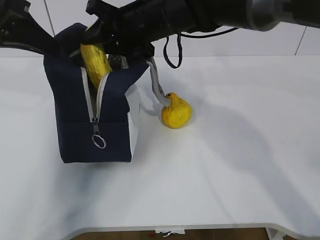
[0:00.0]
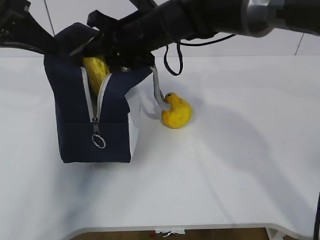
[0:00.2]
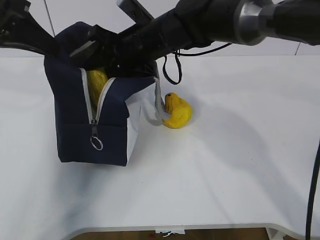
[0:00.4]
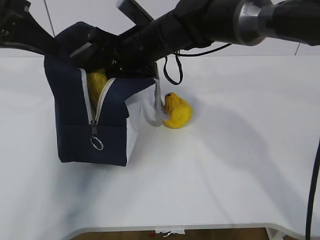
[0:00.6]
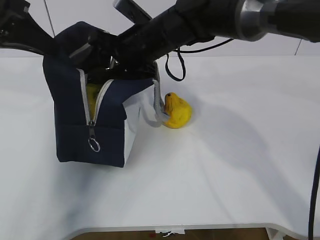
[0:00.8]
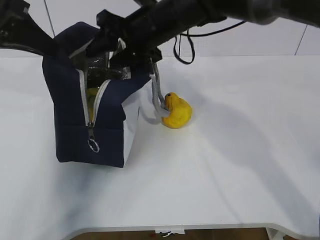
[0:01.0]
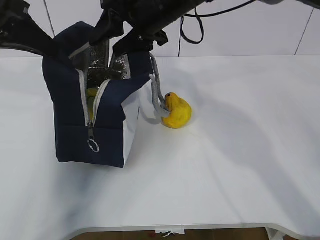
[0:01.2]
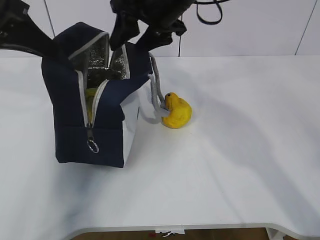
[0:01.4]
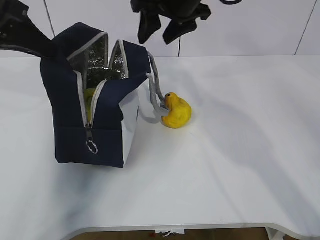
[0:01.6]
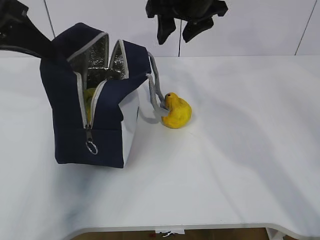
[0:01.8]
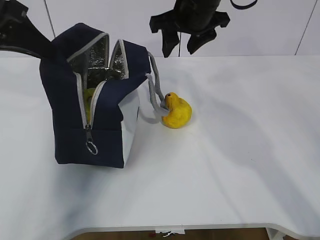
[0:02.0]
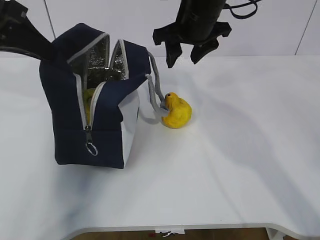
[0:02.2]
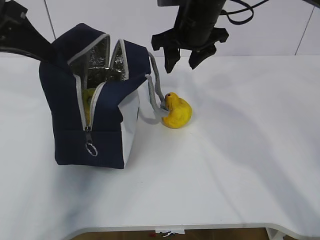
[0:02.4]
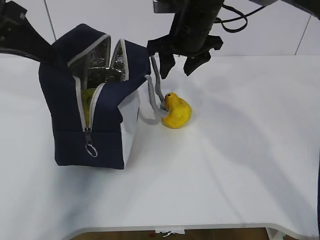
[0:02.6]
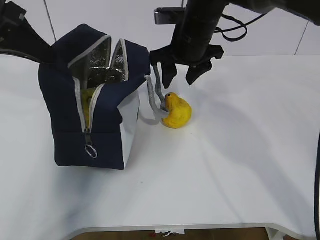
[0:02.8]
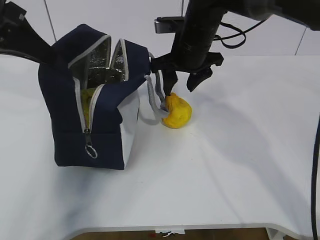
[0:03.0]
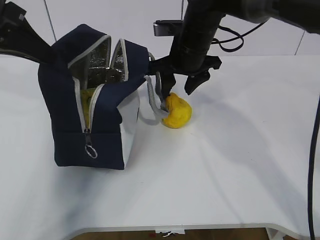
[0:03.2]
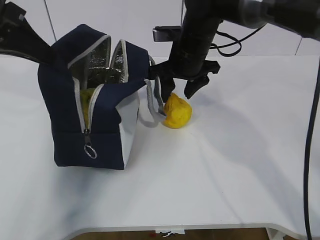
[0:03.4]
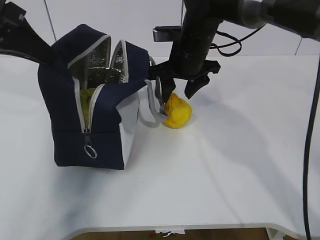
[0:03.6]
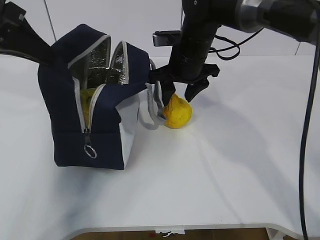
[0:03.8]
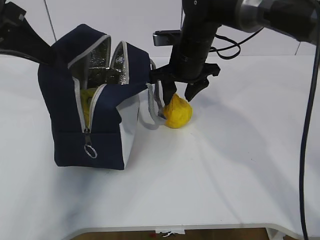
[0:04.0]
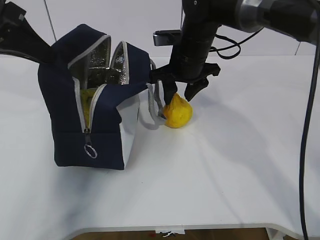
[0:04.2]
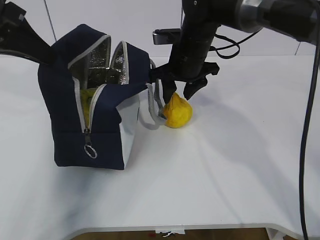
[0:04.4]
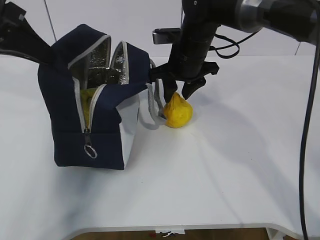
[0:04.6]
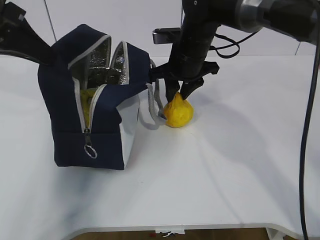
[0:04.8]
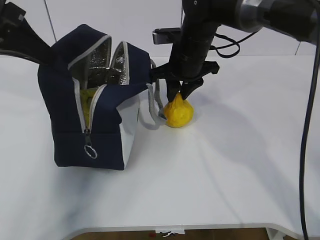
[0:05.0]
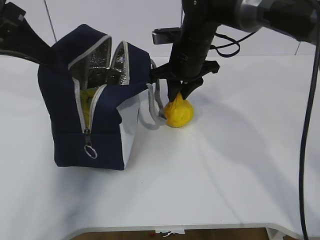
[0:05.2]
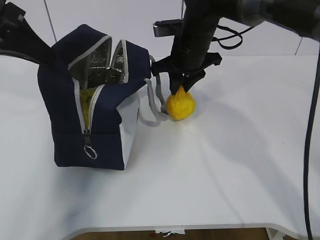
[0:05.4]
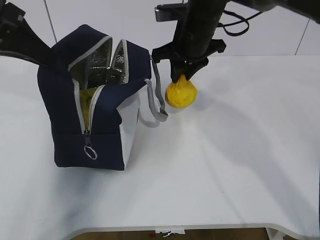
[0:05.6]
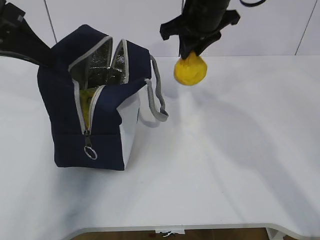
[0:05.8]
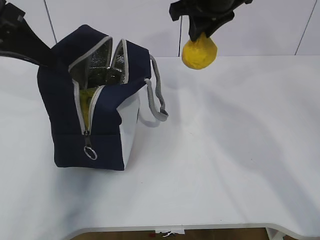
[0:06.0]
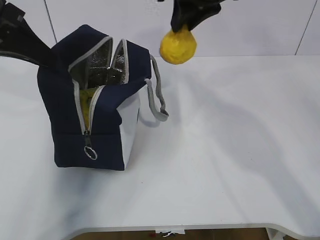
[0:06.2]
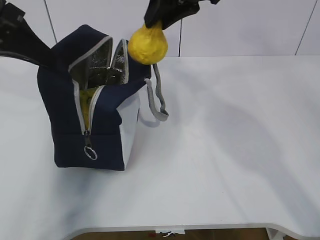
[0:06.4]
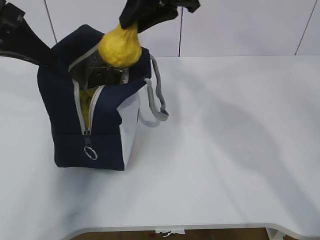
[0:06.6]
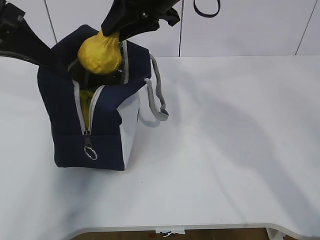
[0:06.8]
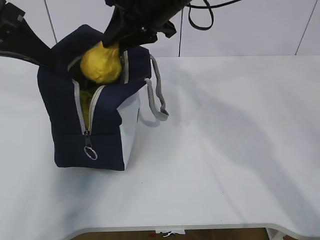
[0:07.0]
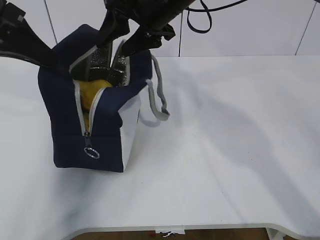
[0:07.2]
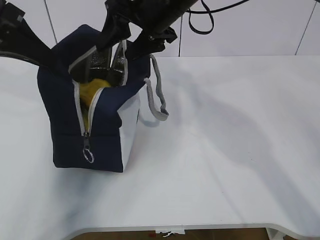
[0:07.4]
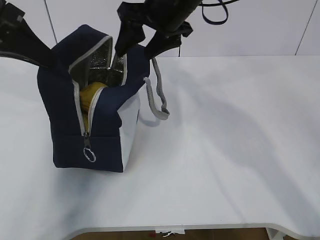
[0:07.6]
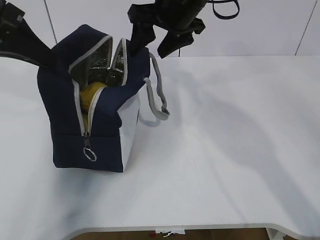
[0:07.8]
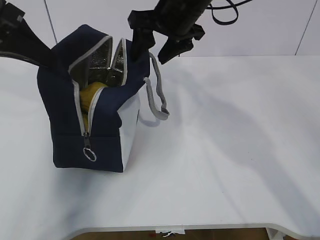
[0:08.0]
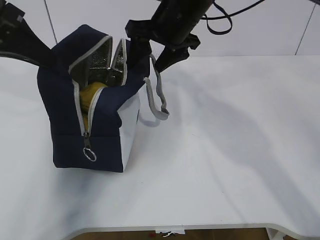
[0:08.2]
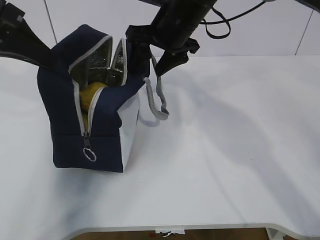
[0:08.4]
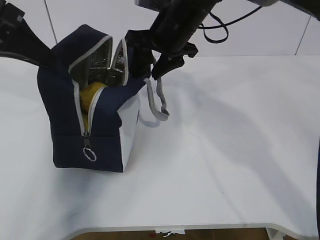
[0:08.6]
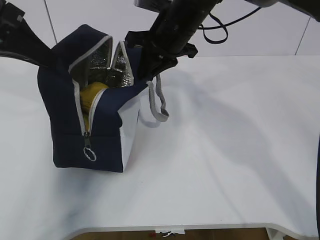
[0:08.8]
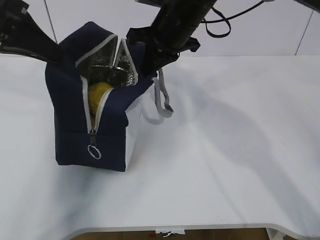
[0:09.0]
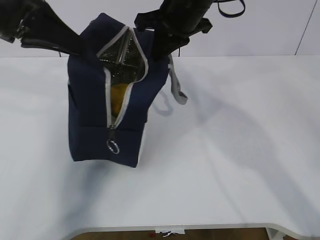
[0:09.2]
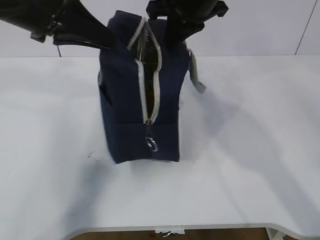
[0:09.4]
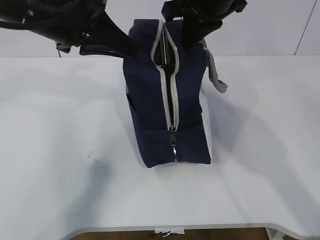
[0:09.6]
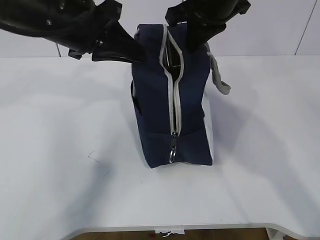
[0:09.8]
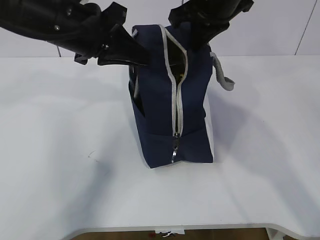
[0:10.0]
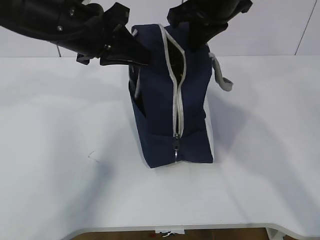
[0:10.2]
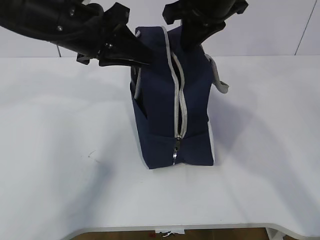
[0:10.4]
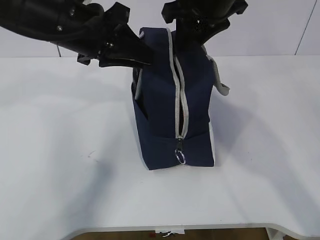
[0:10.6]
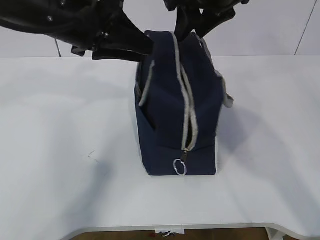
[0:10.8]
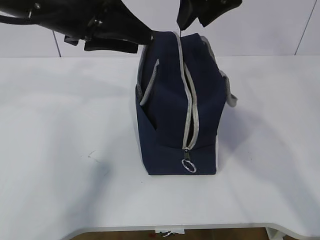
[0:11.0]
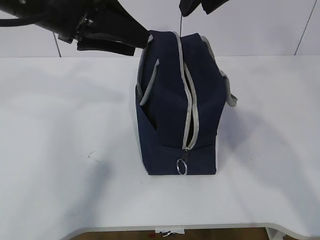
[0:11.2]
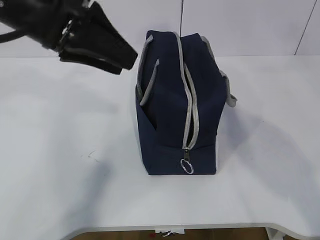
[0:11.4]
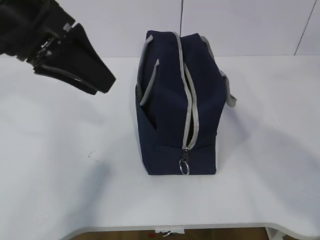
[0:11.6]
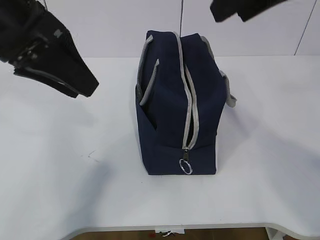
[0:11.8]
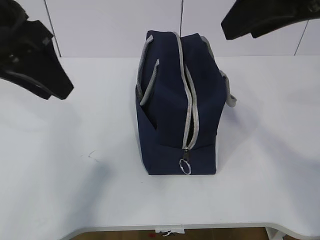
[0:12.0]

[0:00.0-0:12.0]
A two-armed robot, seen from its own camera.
Step, 2.0 to 3.0 s: Grab the lunch bag with your right hand.
Step, 3.2 to 4.8 s: Move the lunch bag to the right.
0.0 to 1.6 s: The right gripper travels to the right by some 5 cm, and opens its fingers.
1.6 to 3.0 s: The right gripper shifts some 10 cm downward.
3.0 to 4.4 s: The grippers stay close to where they were, moving slightly.
4.4 to 6.0 s: The right gripper is displaced upward by approximately 10 cm, and closes its fingers.
6.0 to 7.6 s: The right gripper moves to the left, approximately 5 cm, and opens.
7.6 to 9.0 s: The right gripper closes up.
9.0 to 10.4 s: The left gripper heads to the right, covering roughly 10 cm; the right gripper moves upward, approximately 5 cm.
10.4 to 12.0 s: The left gripper moves backward and to the left, approximately 10 cm, and opens its fingers. Meanwhile the right gripper is displaced backward and upward by approximately 15 cm, and opens.

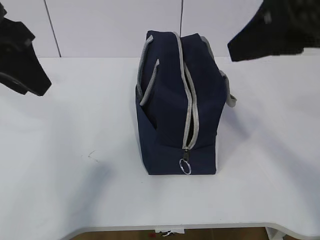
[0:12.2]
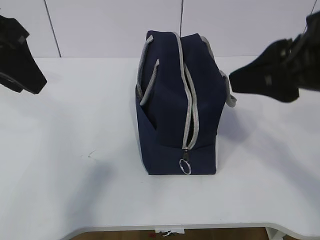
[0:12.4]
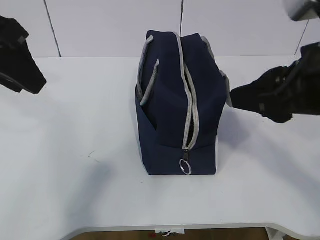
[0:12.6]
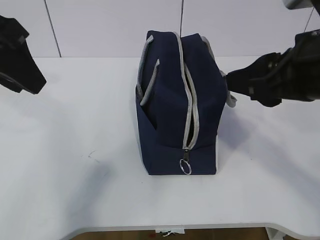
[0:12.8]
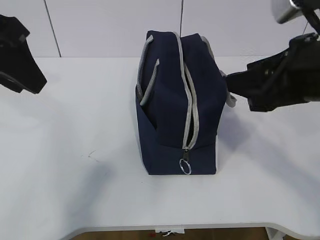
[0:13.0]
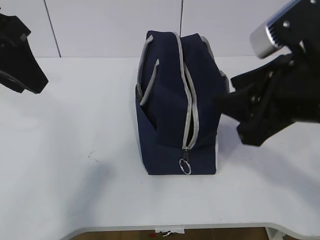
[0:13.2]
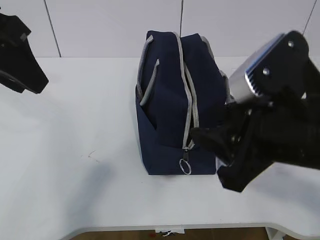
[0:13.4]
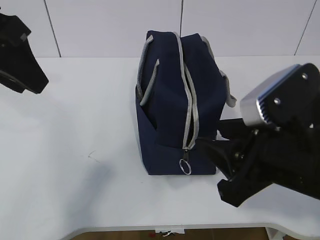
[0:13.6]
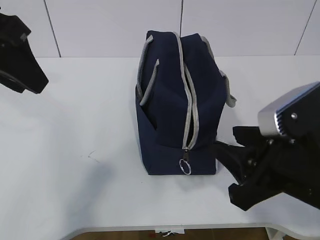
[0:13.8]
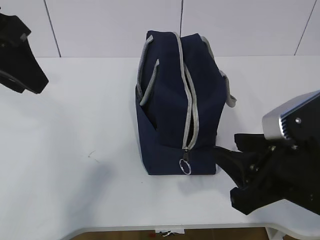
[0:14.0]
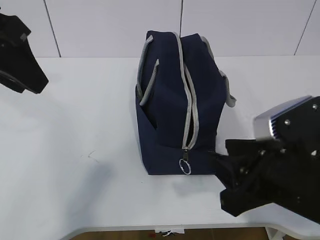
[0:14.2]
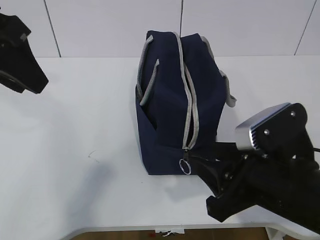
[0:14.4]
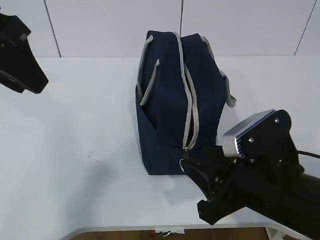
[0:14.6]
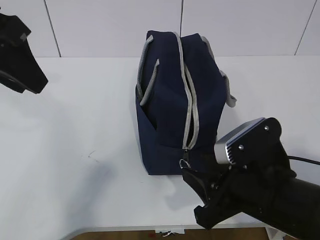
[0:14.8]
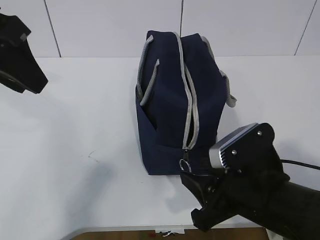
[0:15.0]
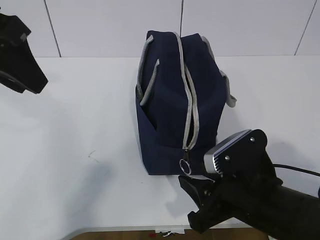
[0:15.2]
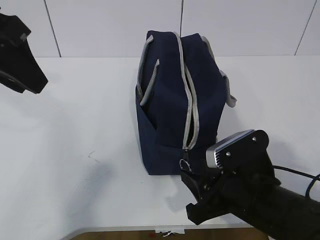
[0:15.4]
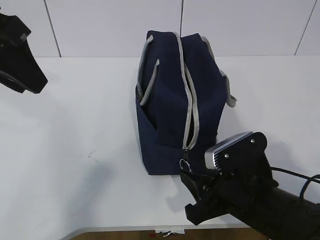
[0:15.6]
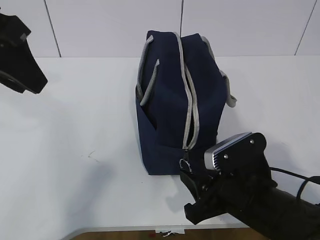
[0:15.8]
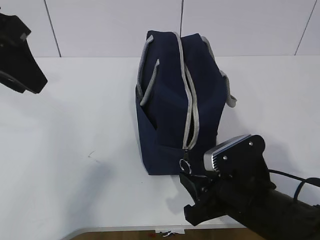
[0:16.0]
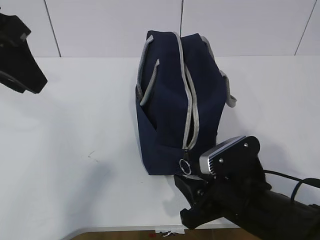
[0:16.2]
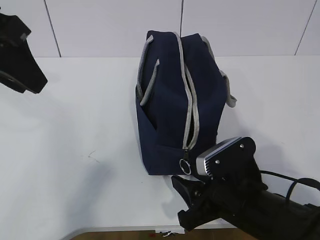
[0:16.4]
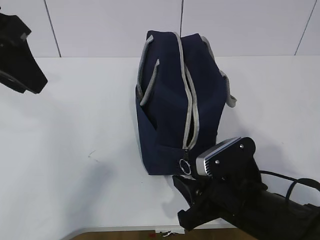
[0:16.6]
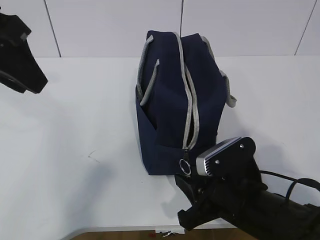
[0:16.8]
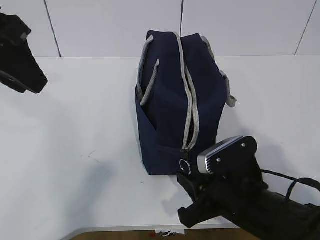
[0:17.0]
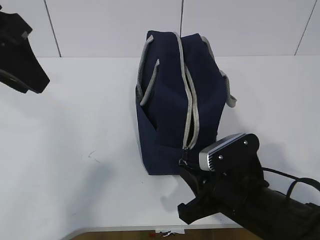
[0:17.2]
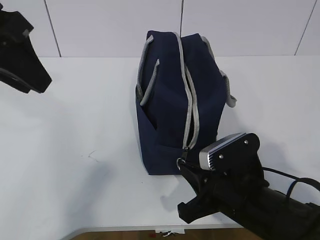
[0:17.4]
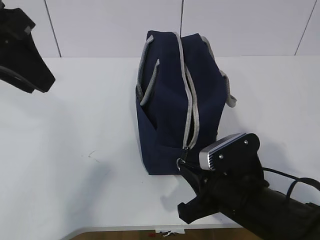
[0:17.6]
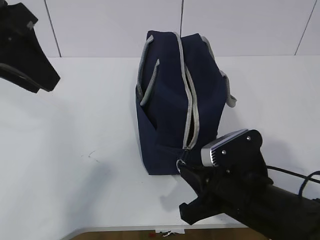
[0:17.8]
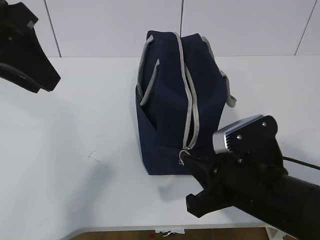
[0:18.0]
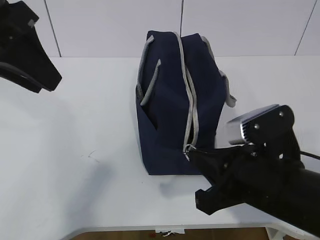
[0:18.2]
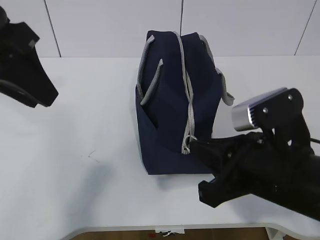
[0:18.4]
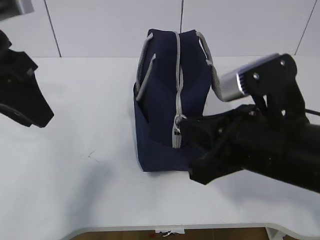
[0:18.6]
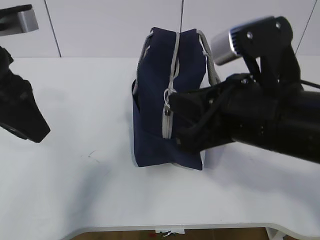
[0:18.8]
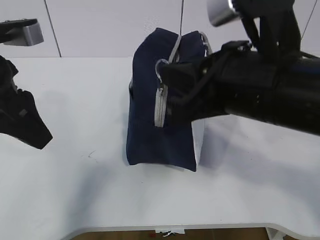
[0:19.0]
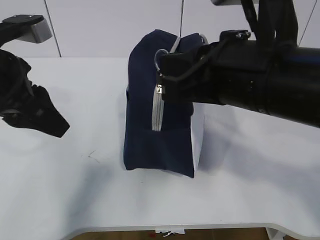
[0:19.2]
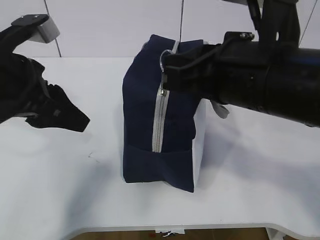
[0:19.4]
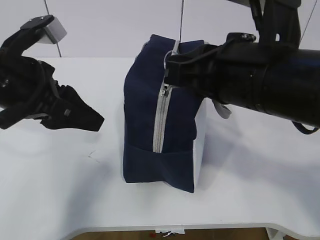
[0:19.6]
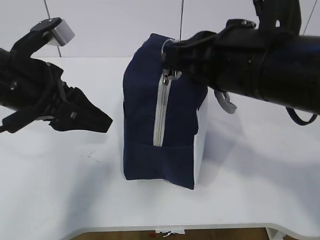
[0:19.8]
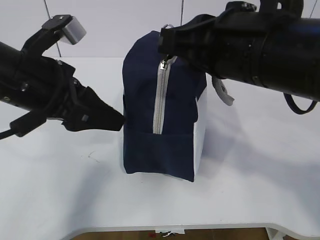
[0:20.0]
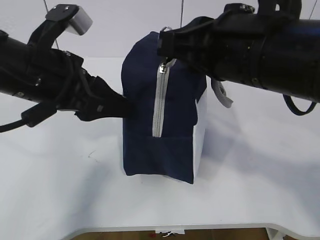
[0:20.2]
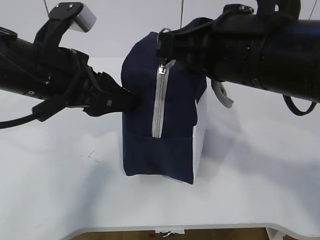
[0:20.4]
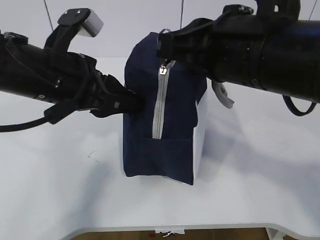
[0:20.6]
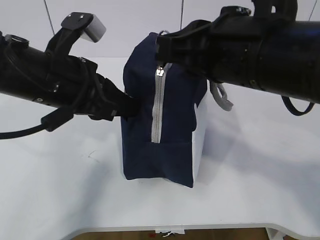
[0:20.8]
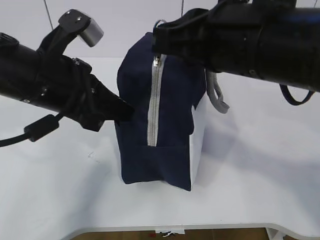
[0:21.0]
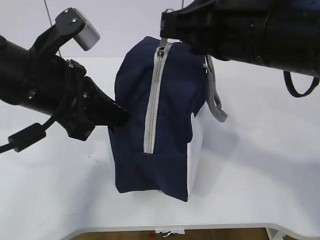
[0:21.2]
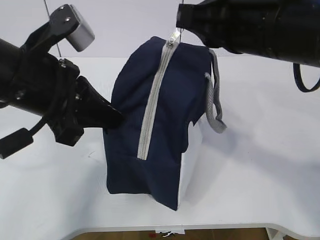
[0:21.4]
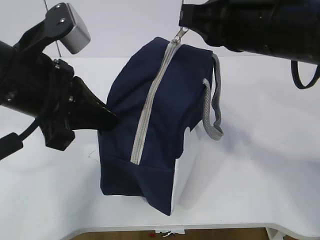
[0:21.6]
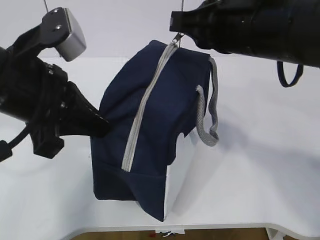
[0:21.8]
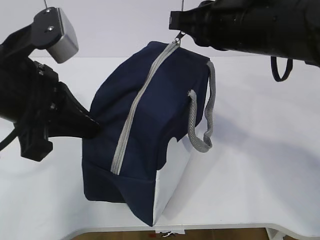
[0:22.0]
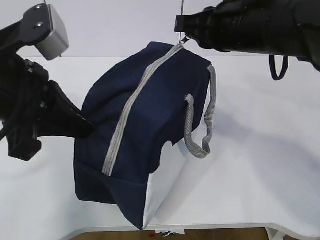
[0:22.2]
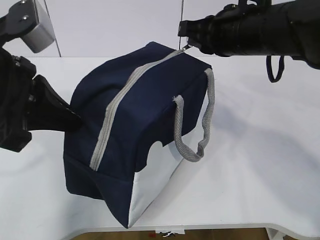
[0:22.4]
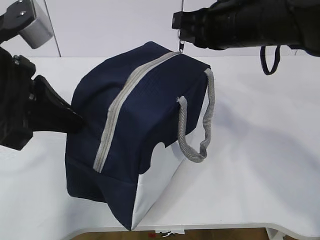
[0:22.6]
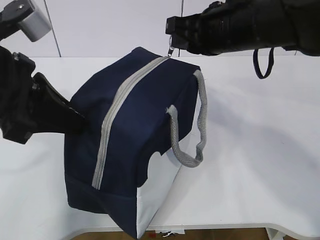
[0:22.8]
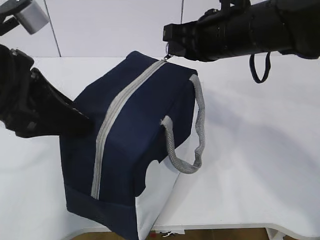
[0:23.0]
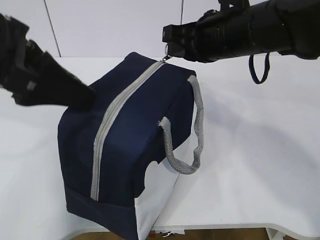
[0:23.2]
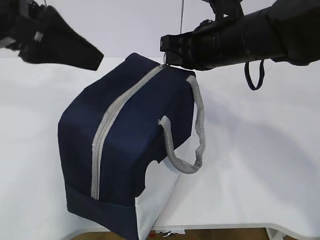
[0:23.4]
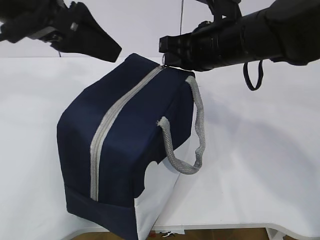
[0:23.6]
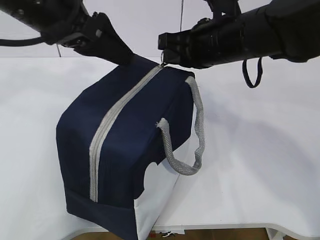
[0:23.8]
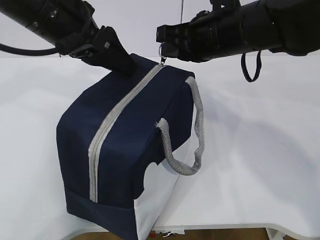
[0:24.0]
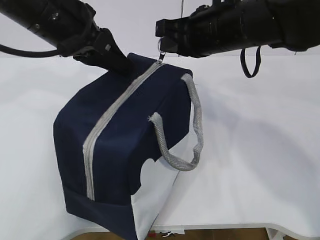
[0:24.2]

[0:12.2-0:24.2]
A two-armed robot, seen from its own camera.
Step, 15.0 to 17.8 s: Pull the zipper with your right hand.
Step, 18.0 to 18.6 s: Grab the lunch bag with your left hand.
12.2 to 13.8 s: The right gripper goes roughly 15 cm downward.
13.8 to 15.2 s: The right gripper travels downward by about 10 cm.
15.2 to 16.6 s: The grippers stay close to where they were, moving slightly.
16.6 to 18.2 s: The right gripper goes about 5 cm upward, and closes its fingers.
18.2 to 19.8 s: The right gripper shifts about 15 cm upward; the left gripper shifts some 10 cm downward.
19.8 to 21.2 s: The left gripper closes its fingers.
21.2 to 22.6 s: The right gripper goes roughly 10 cm forward. The left gripper ends up some 5 cm from where it was.
22.6 to 24.2 s: The left gripper is displaced forward by roughly 10 cm, and opens up.
